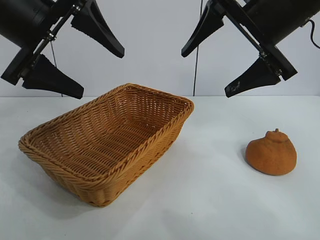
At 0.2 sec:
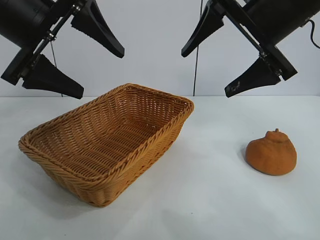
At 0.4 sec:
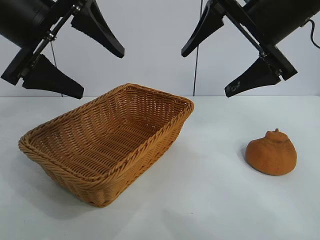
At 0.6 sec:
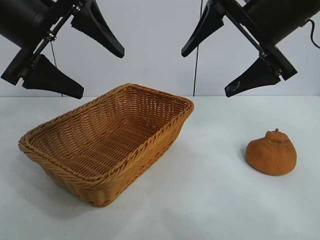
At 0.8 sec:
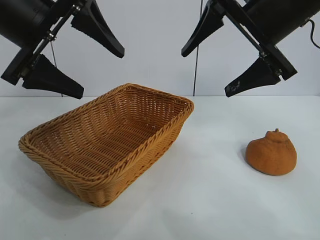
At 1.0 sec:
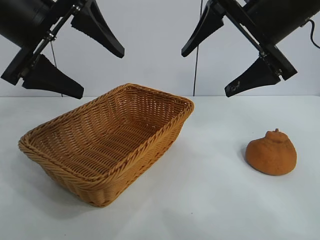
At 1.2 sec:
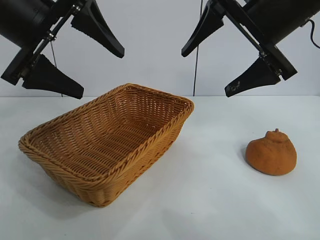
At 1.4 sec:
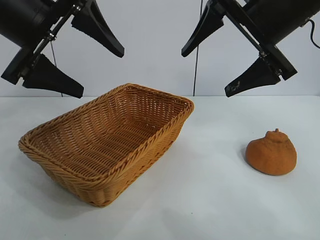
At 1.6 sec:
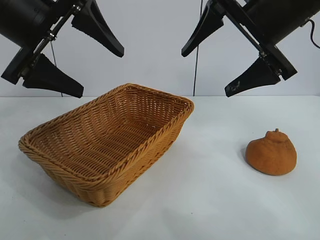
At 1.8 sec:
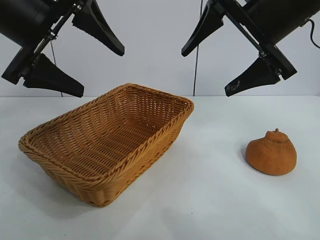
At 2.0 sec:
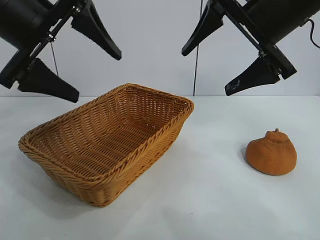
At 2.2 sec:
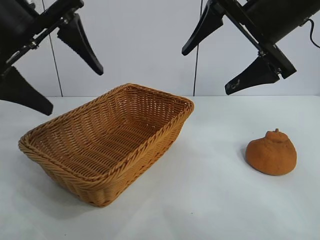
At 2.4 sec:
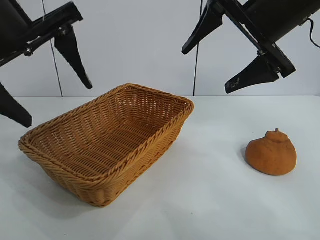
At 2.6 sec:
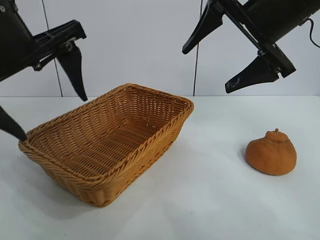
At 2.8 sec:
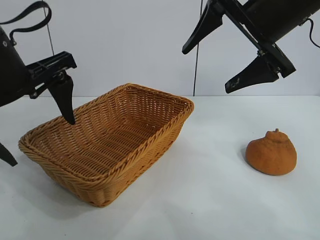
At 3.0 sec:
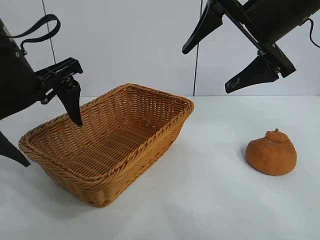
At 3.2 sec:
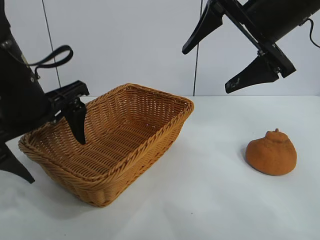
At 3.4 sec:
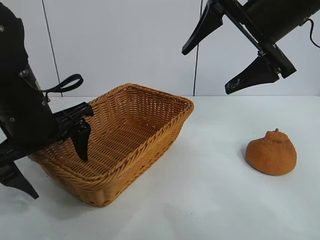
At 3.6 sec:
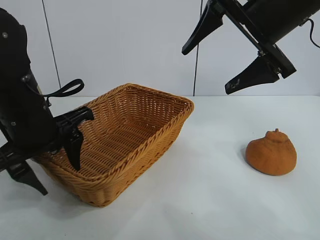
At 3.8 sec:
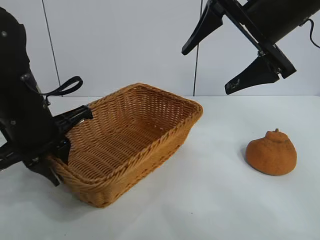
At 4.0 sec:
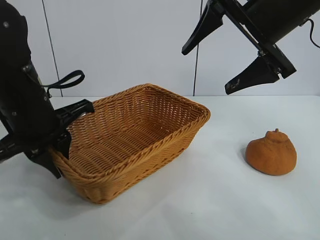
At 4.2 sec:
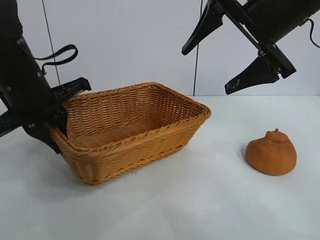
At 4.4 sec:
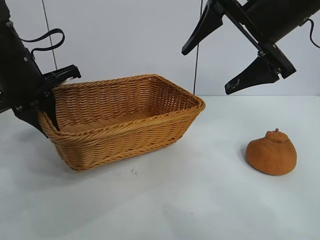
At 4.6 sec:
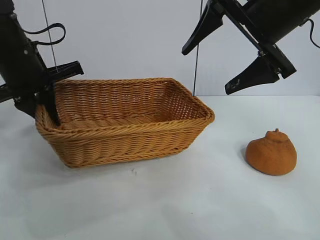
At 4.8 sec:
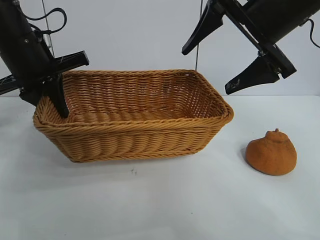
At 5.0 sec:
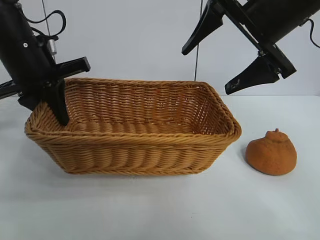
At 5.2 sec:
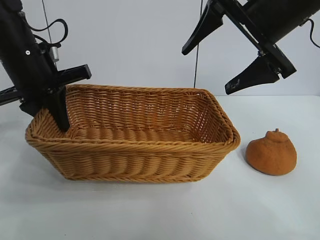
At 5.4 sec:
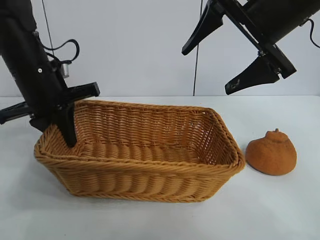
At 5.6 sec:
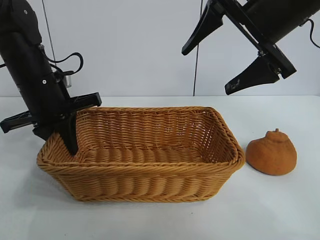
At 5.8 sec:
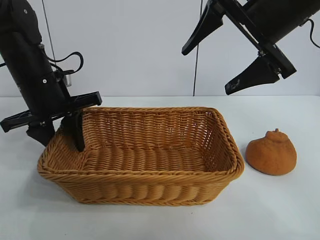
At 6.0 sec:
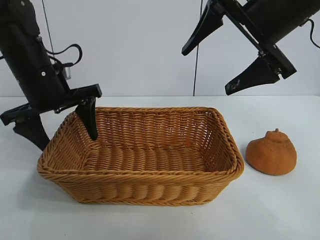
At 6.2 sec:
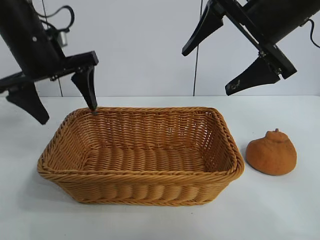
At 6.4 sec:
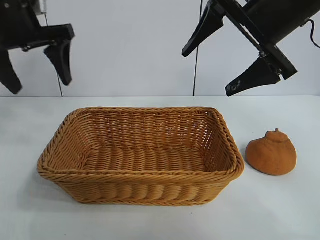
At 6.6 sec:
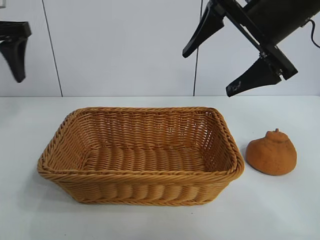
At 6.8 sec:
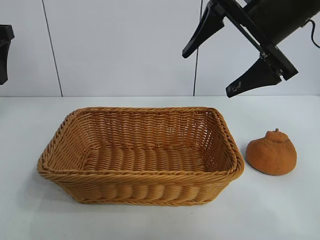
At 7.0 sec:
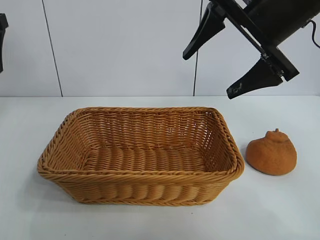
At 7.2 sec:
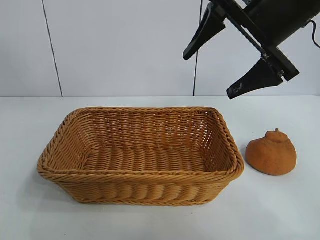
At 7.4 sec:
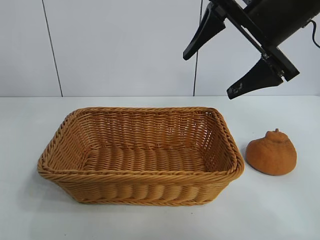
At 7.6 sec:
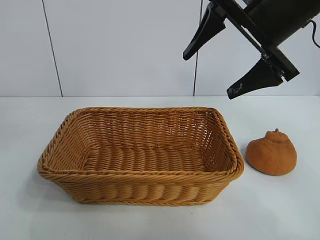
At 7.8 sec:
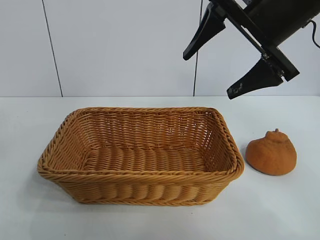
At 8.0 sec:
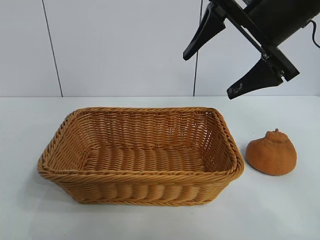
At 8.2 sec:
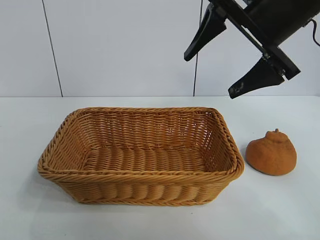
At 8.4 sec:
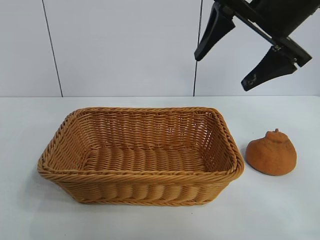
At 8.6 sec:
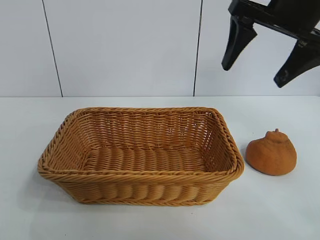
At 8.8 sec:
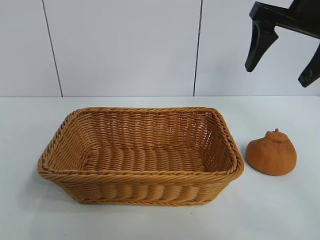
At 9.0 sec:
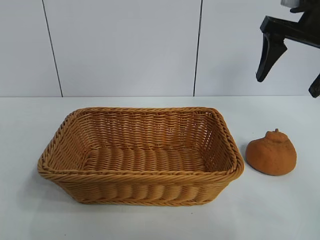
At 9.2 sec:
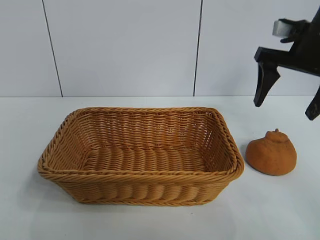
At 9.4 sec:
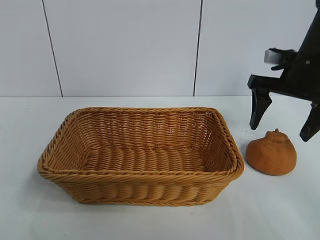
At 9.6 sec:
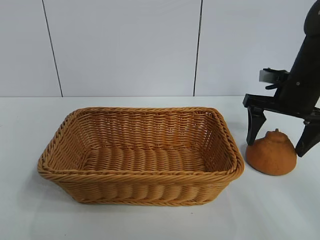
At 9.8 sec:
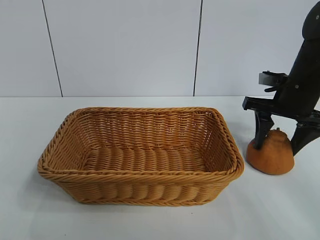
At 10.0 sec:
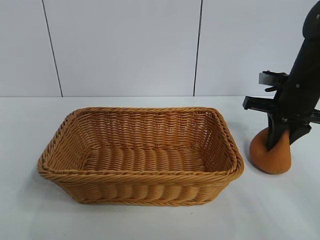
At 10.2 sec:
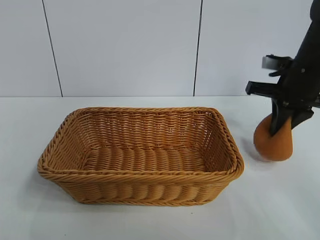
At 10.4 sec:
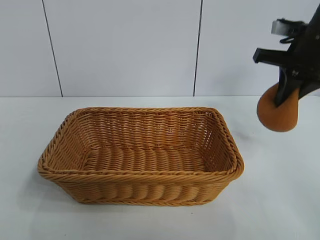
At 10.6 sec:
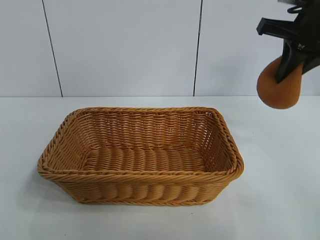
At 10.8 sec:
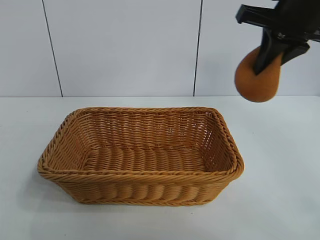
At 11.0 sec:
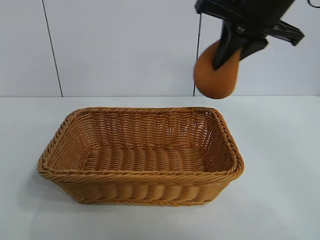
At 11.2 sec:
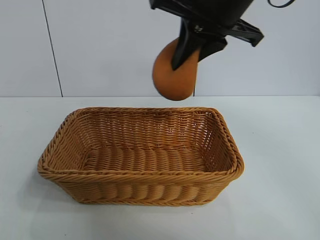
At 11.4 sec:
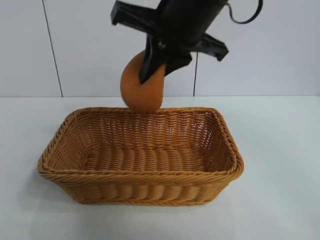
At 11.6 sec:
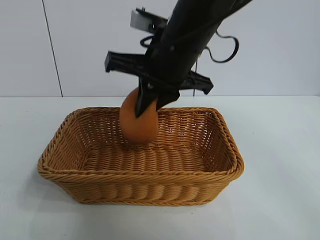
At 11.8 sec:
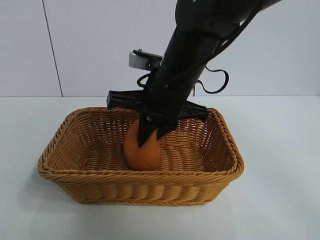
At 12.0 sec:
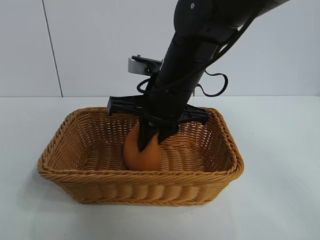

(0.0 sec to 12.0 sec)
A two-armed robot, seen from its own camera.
Task of the whole recording: pick up the orange and put it into the basket.
Step, 1.2 sec - 3.8 sec: Grasp the basket with left gripper.
Step, 4.0 sec - 6.4 sec: Place the basket in the center of view with left gripper.
Step, 6.6 sec - 9.8 sec: Grasp the orange with right gripper.
